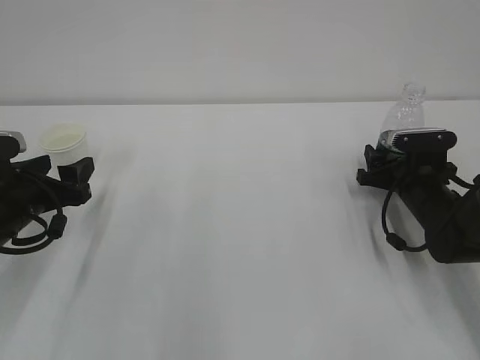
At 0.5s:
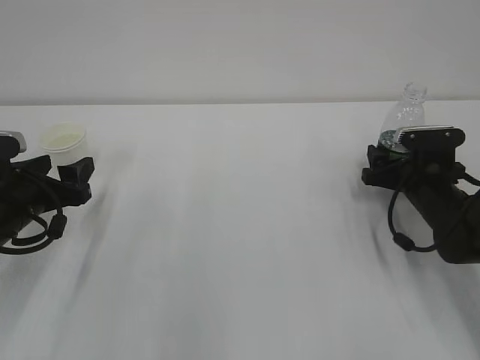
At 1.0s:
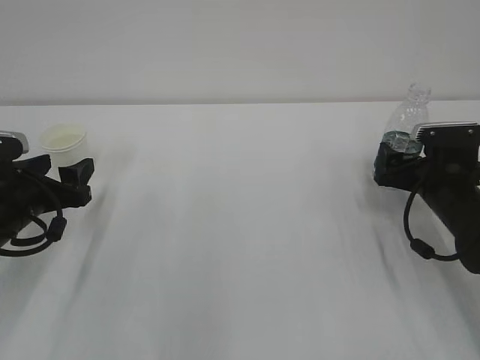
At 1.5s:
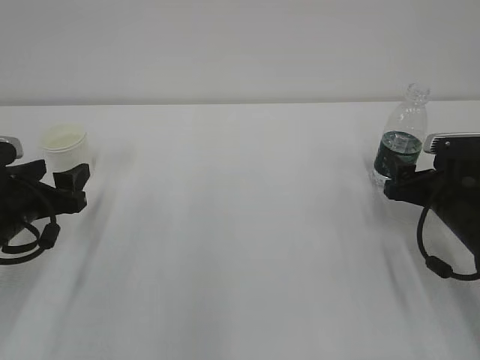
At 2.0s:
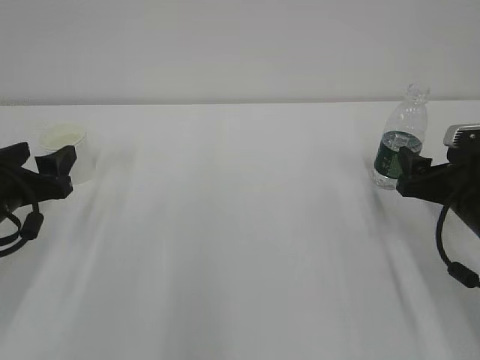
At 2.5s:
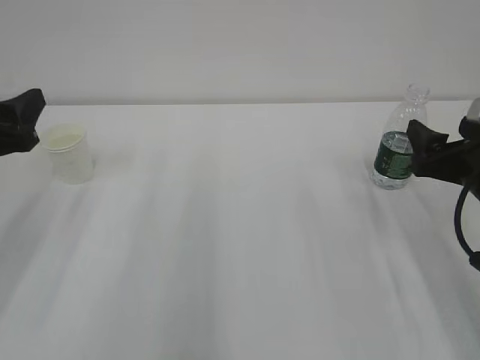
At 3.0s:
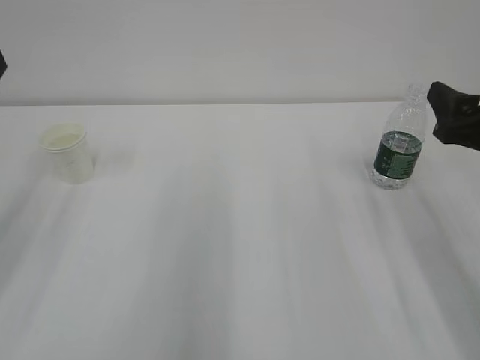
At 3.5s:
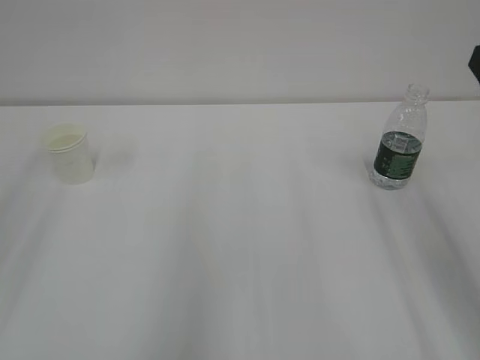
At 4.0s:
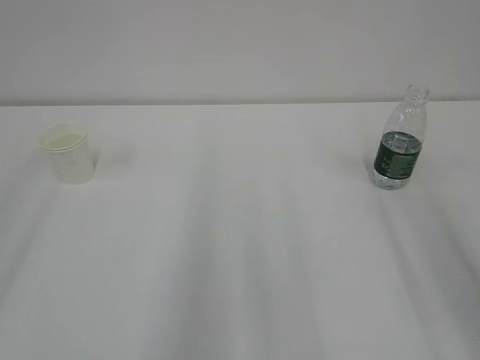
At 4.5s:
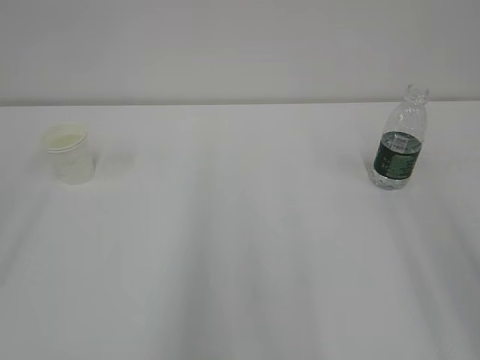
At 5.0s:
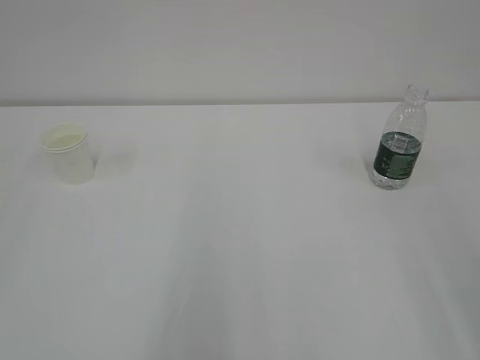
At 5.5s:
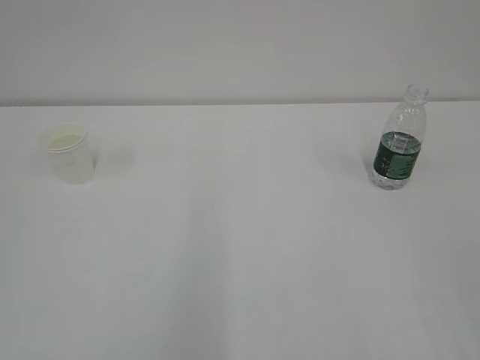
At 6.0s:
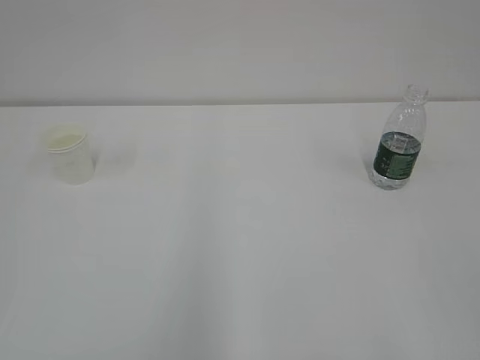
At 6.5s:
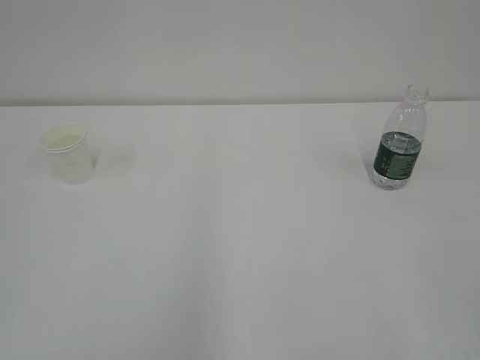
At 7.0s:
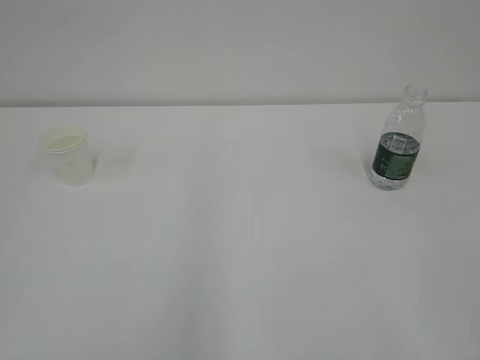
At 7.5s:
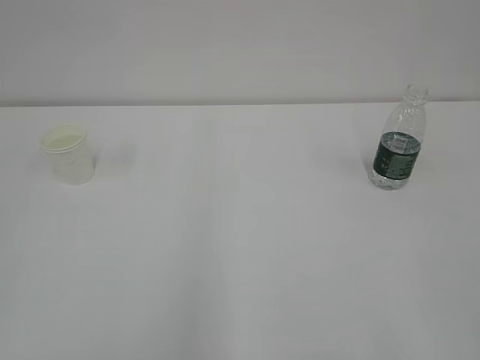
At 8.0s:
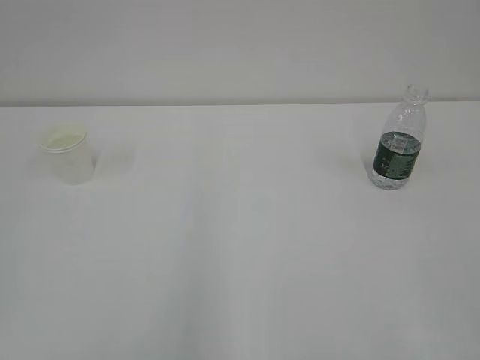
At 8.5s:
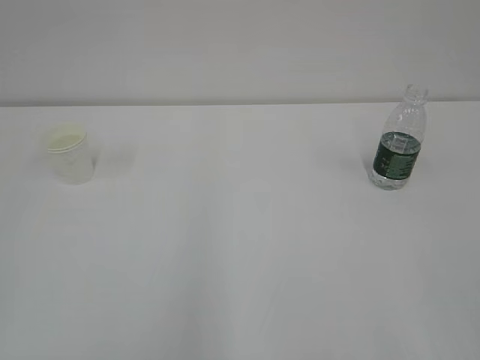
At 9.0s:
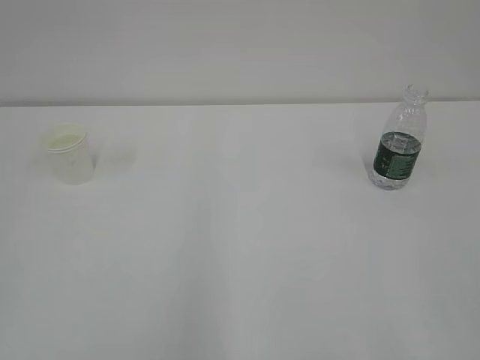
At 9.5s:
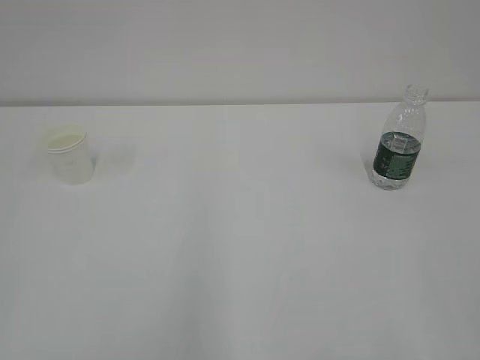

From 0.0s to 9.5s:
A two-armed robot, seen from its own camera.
From 0.0s to 2.0s: The right gripper goes approximately 10 cm backward and upward, and opens its fingers.
From 2.0s to 4.0s: Both grippers move upward and backward, roughly 25 cm.
From 7.5s to 9.5s: The two grippers keep their place.
